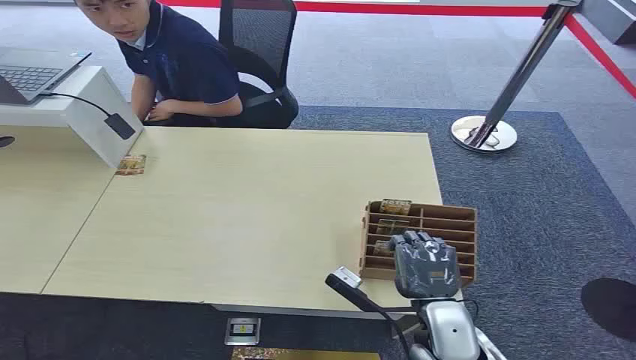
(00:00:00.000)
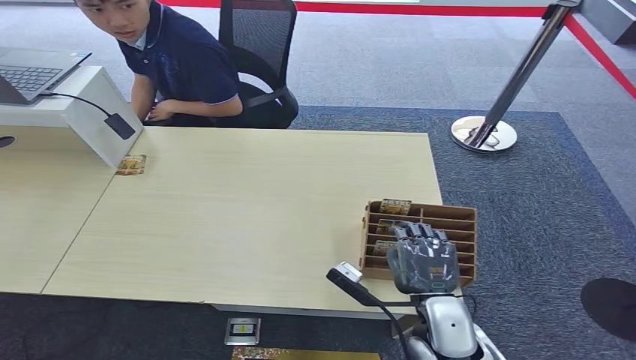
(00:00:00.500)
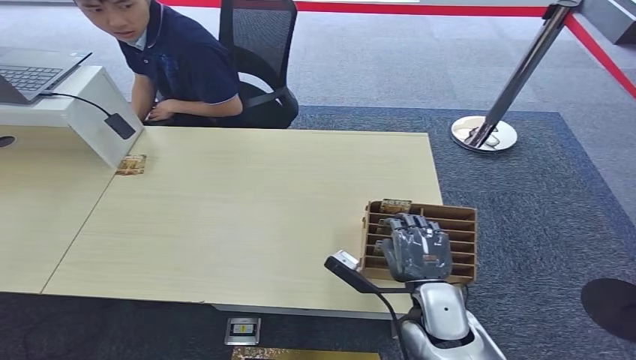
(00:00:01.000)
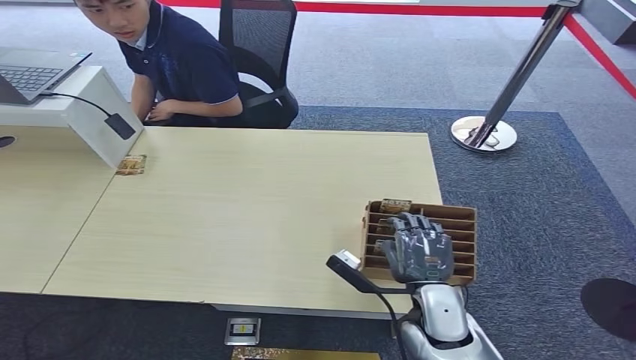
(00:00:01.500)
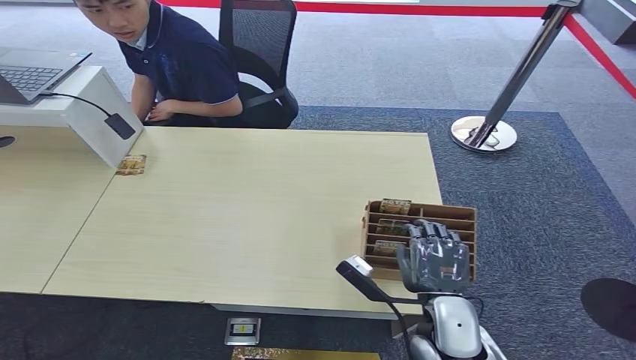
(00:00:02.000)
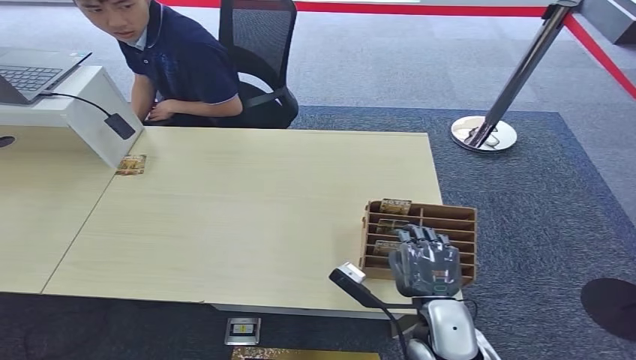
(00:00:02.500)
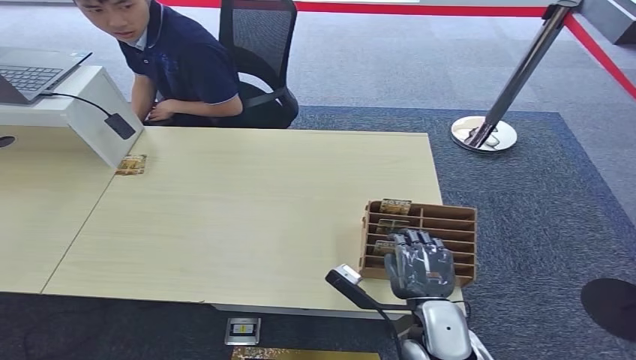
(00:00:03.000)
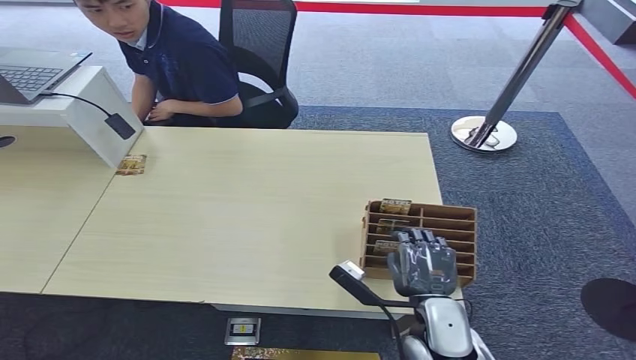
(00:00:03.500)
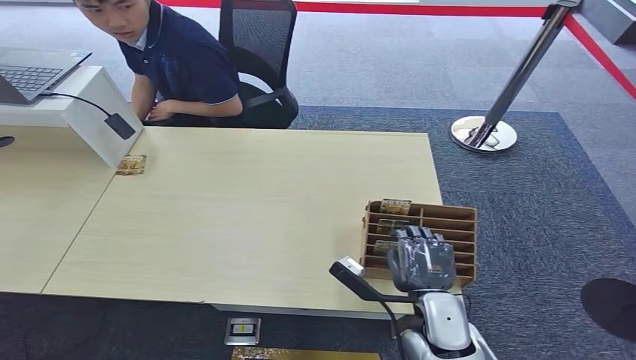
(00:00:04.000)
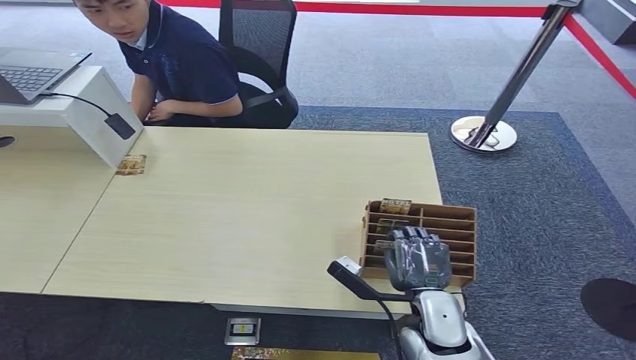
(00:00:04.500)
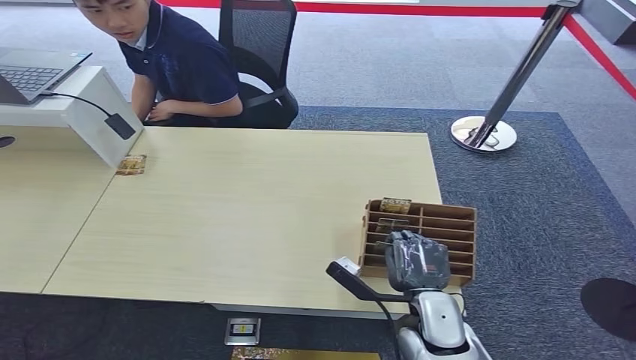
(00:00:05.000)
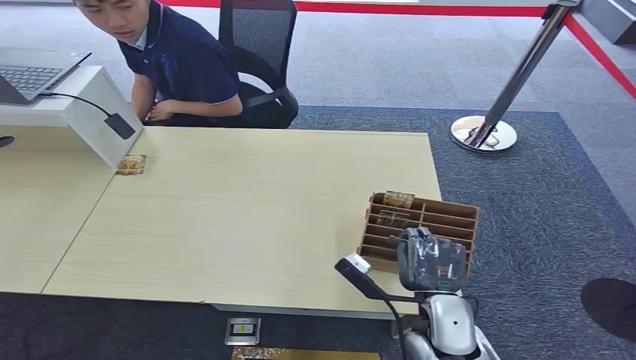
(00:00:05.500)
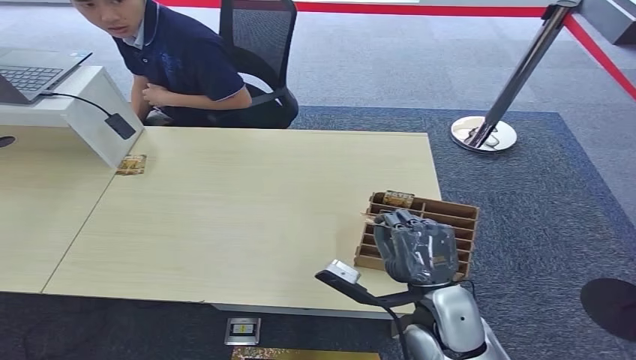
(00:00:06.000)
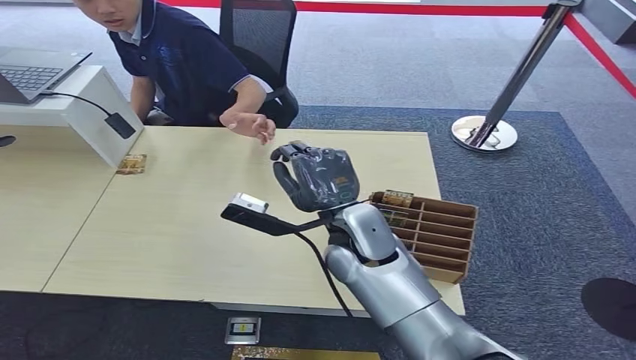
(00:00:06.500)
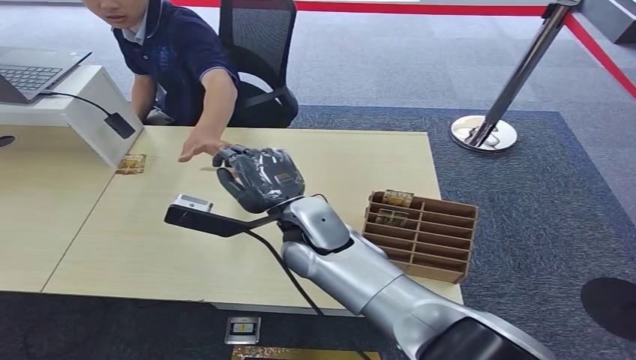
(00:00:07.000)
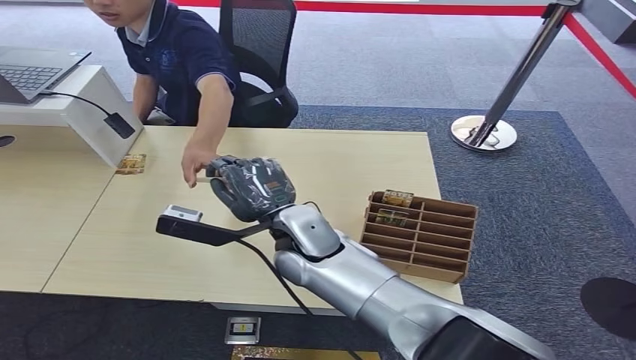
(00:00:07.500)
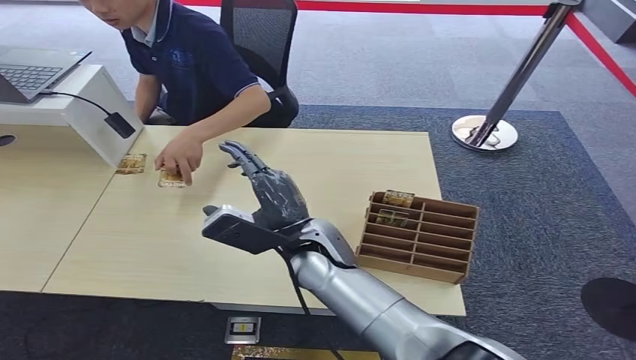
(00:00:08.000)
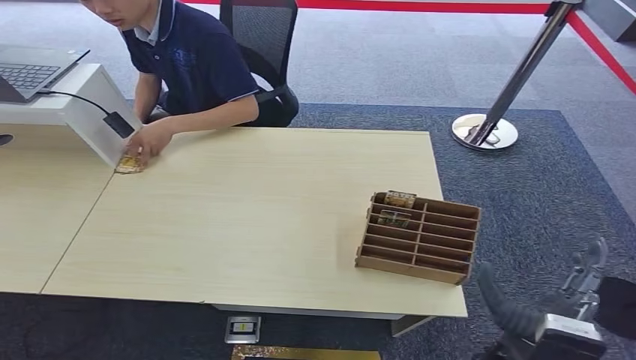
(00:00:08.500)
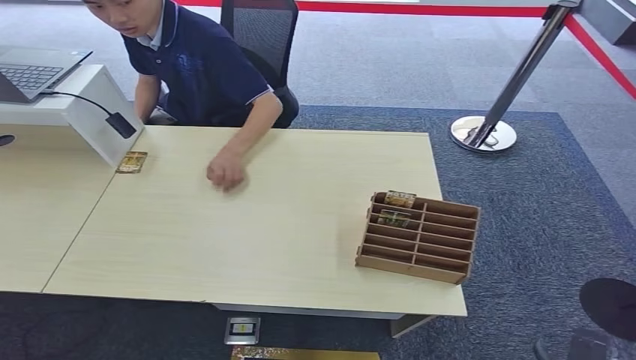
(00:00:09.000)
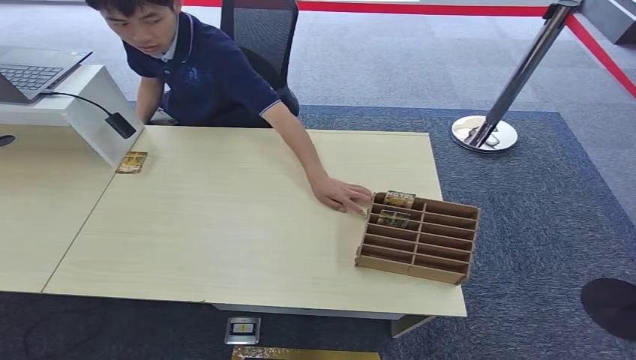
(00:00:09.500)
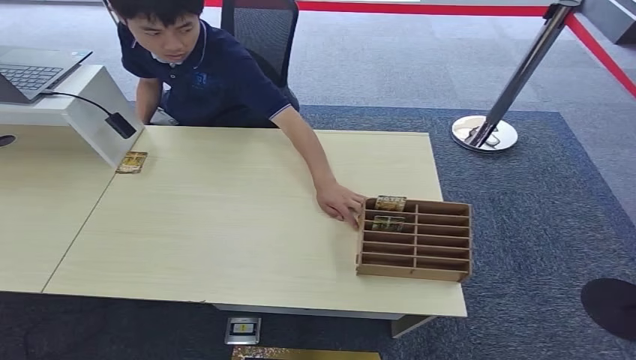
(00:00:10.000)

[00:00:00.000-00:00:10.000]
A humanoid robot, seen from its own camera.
Step, 00:00:00.000 to 00:00:05.500: Pick up the key card from the card box.
Step, 00:00:06.000 to 00:00:10.000: Hand the key card to the target.
00:00:02.000 to 00:00:04.000: The hands stay close to where they were, moving slightly.
00:00:04.000 to 00:00:06.000: The right hand travels upward by roughly 5 cm.
00:00:06.000 to 00:00:08.000: The right hand moves to the left and forward, some 15 cm.
00:00:08.000 to 00:00:10.000: The right hand is displaced backward, downward and to the right by some 40 cm.
